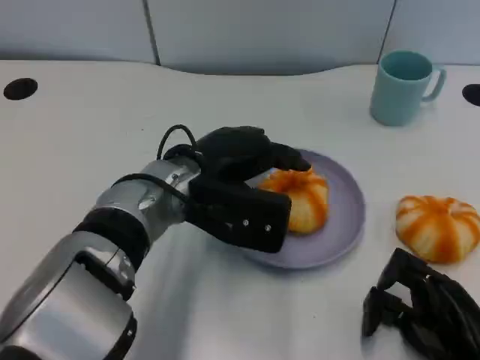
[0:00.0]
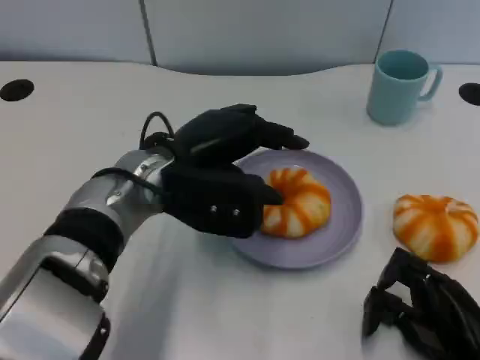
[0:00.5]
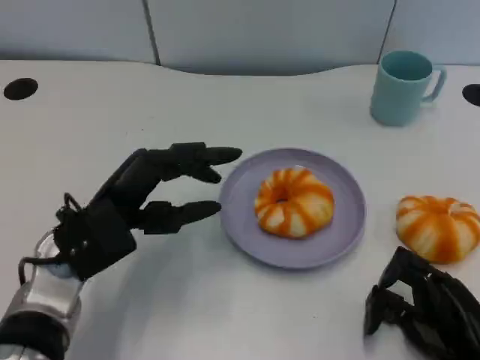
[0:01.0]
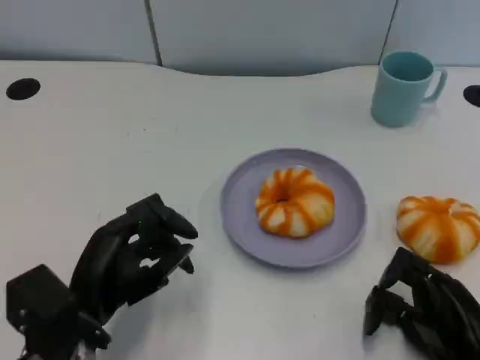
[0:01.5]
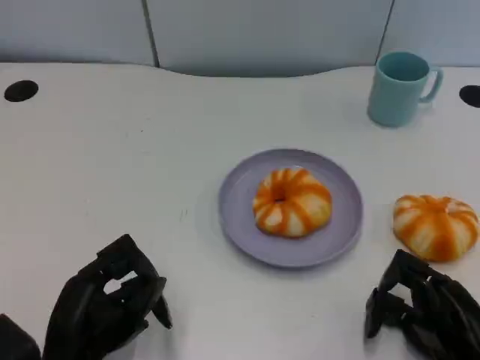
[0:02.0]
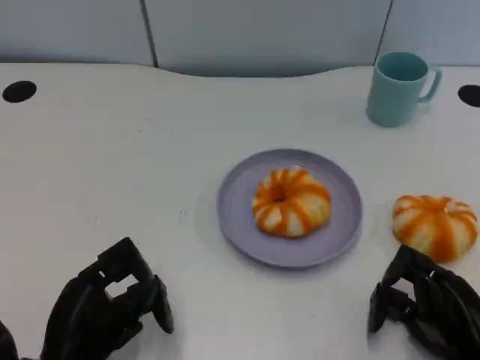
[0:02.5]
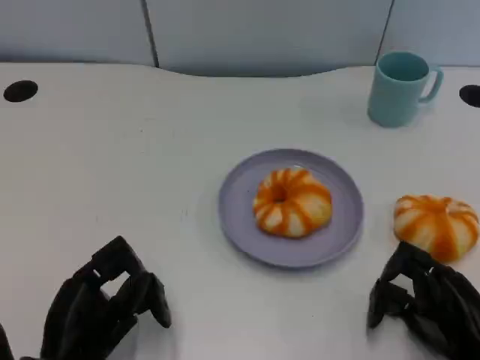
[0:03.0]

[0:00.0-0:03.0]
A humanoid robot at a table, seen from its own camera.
Task of the whole recording: Grasp the bread from the table and place it into the plate.
0:00.0 to 0:01.5: The left hand moves backward, to the left and downward, about 20 cm.

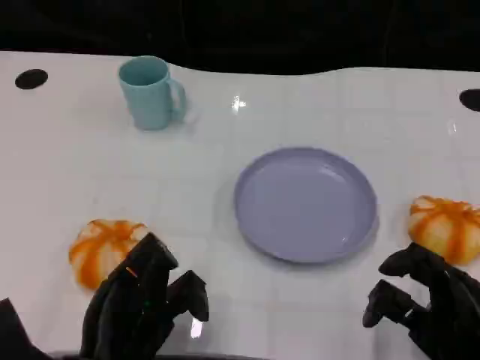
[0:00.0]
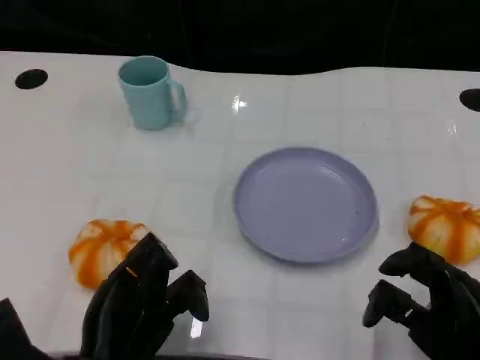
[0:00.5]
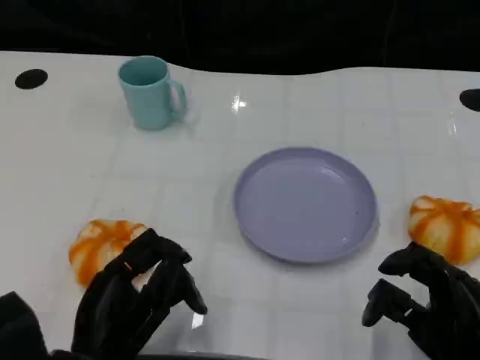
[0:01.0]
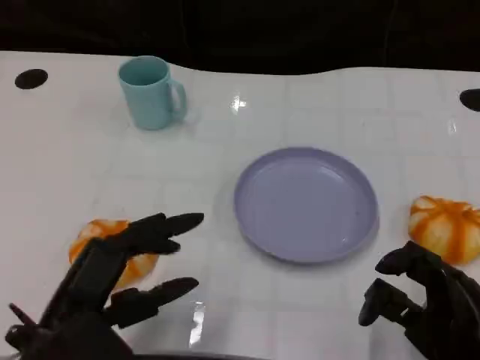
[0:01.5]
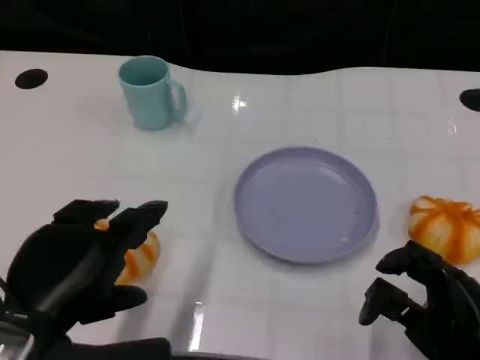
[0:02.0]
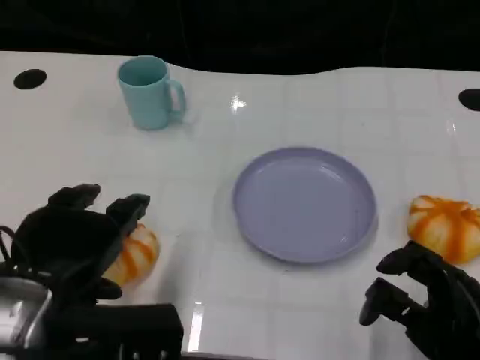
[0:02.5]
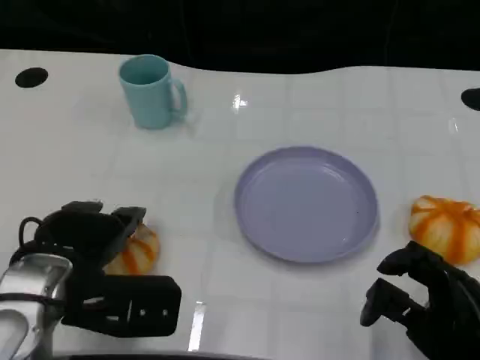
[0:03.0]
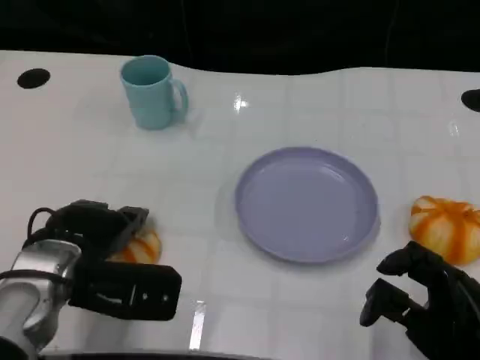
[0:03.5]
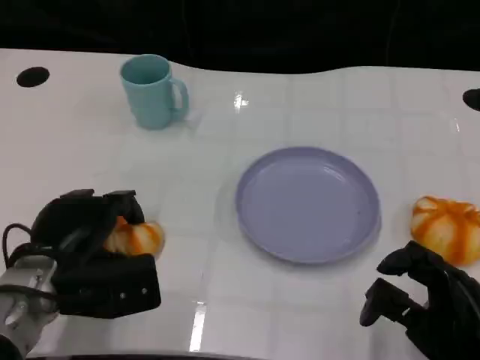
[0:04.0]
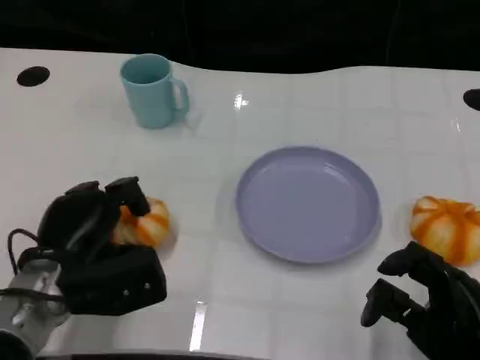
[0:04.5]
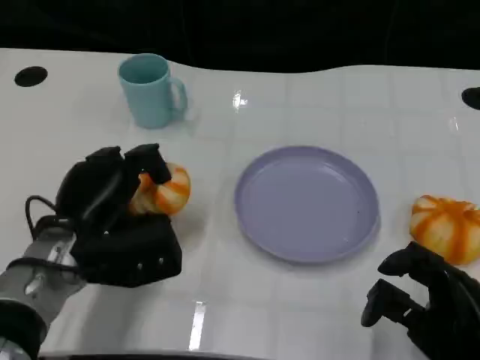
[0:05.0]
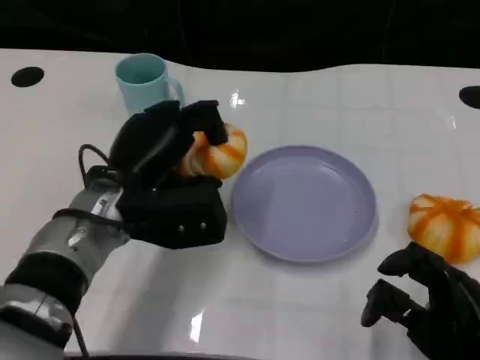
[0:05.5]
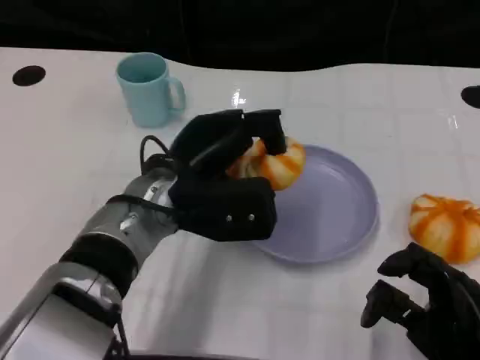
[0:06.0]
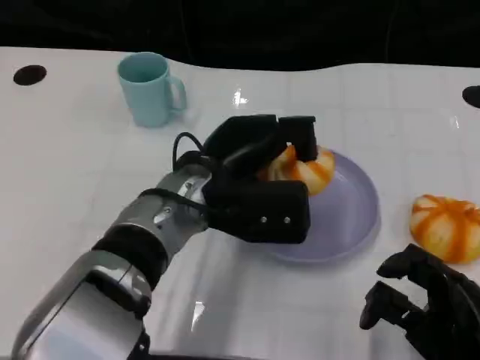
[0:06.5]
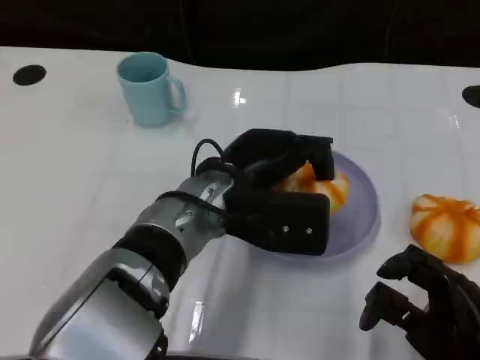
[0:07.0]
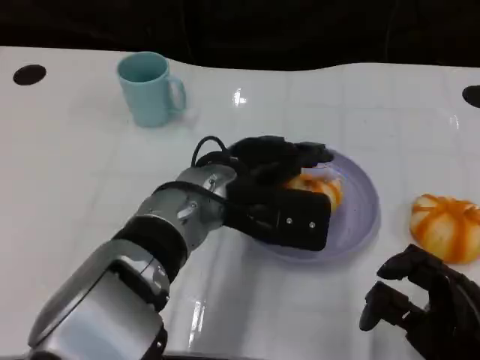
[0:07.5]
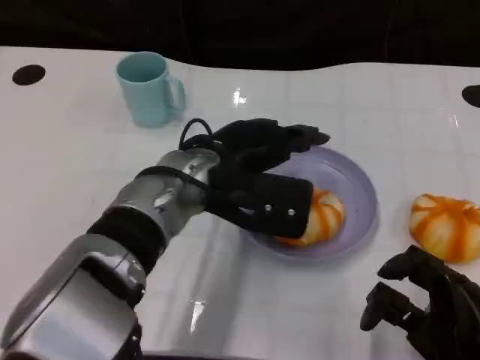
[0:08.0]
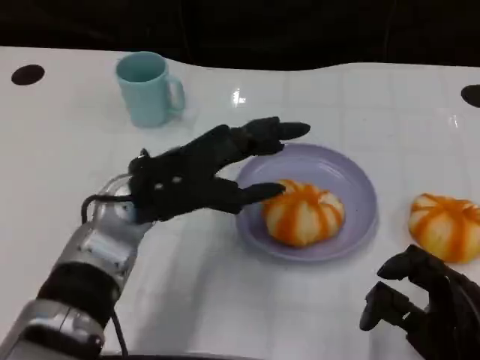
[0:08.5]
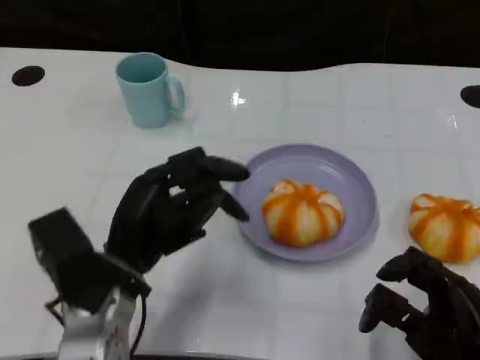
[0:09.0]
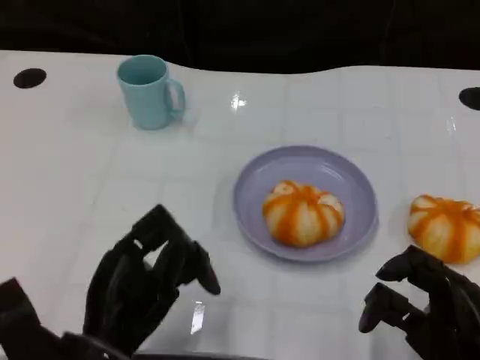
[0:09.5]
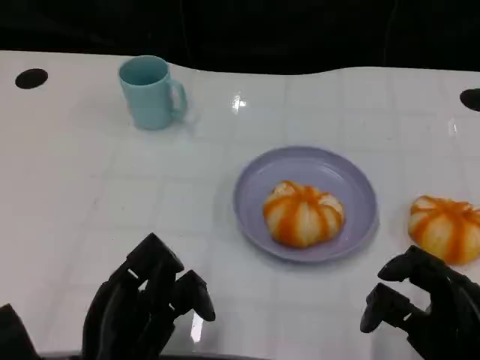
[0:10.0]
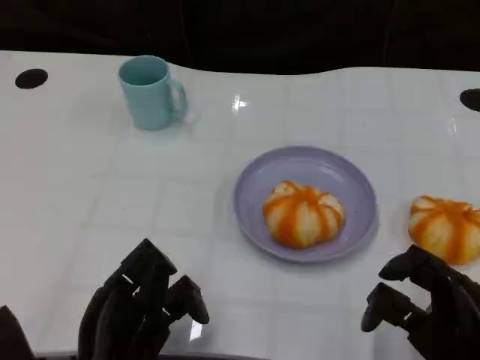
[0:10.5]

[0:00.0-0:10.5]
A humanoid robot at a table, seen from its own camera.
Task of the whole recording: Grasp the bread from the table and place it into the plate.
0:00.0 to 0:02.0: The left hand is displaced upward by about 10 cm.
0:02.0 to 0:04.0: The left hand is displaced forward and downward by some 15 cm.
0:04.0 to 0:06.5: The left hand goes roughly 15 cm to the right and upward.
0:06.5 to 0:08.5: The left hand goes approximately 5 cm to the left.
0:08.5 to 0:10.5: The left hand shifts approximately 15 cm backward and downward.

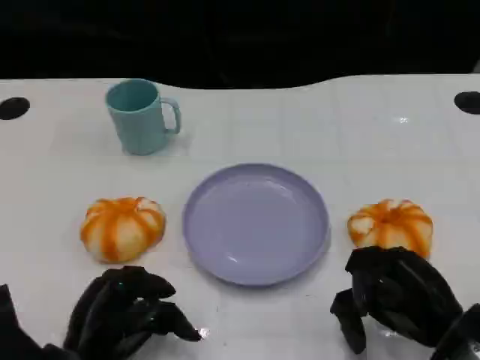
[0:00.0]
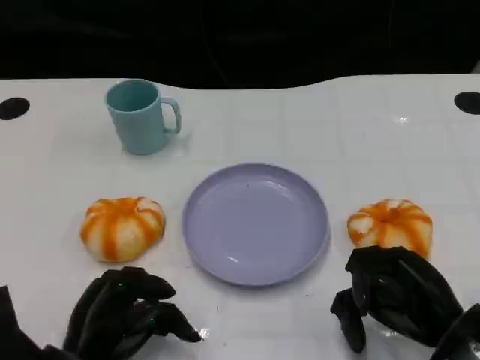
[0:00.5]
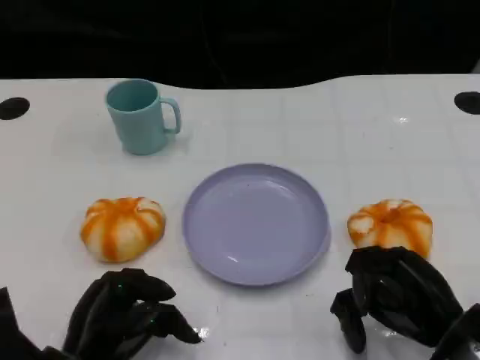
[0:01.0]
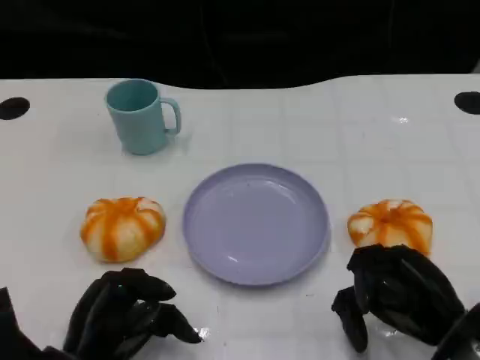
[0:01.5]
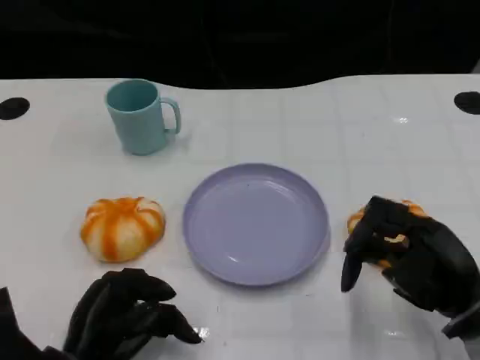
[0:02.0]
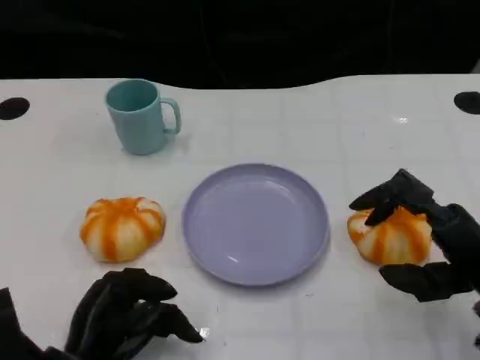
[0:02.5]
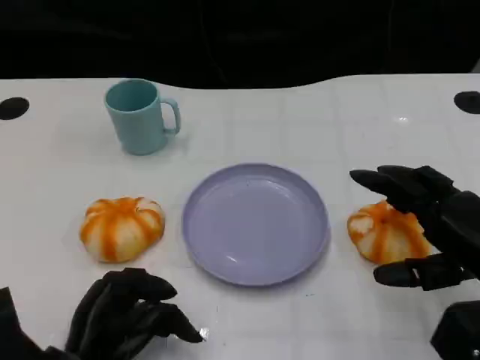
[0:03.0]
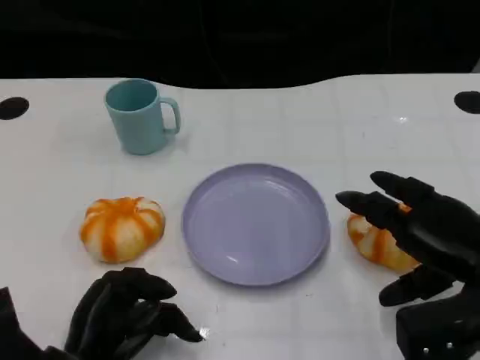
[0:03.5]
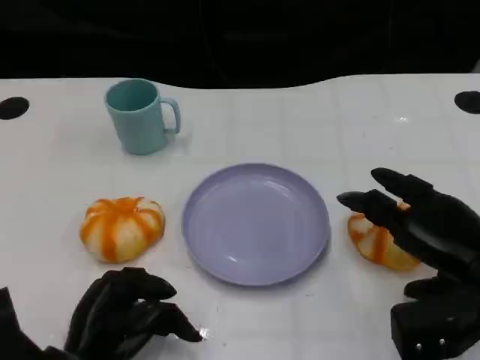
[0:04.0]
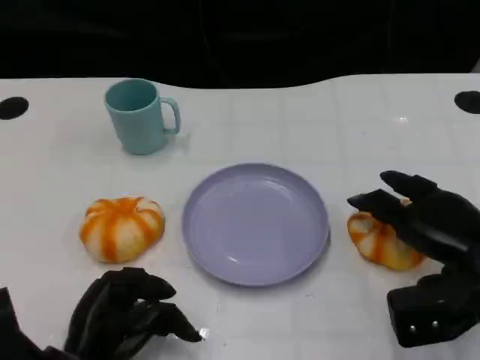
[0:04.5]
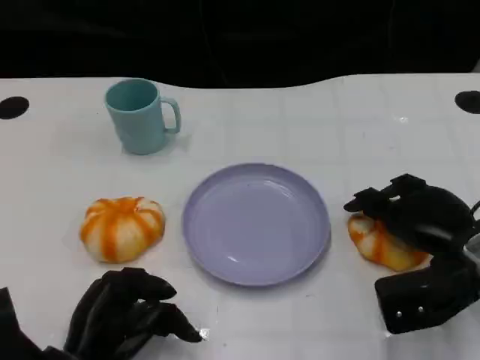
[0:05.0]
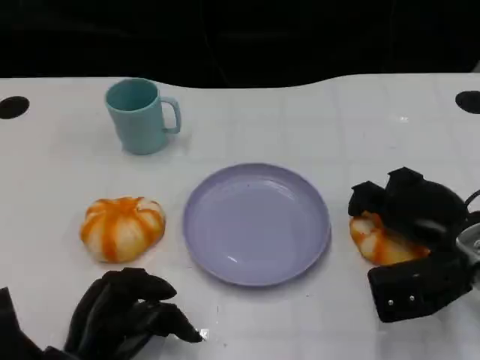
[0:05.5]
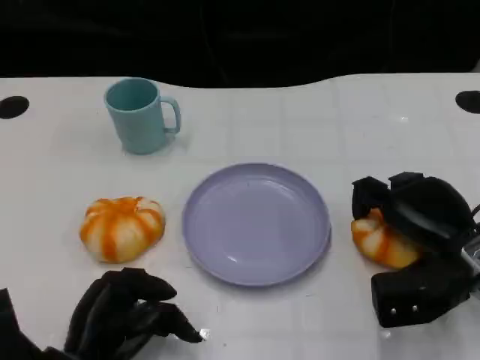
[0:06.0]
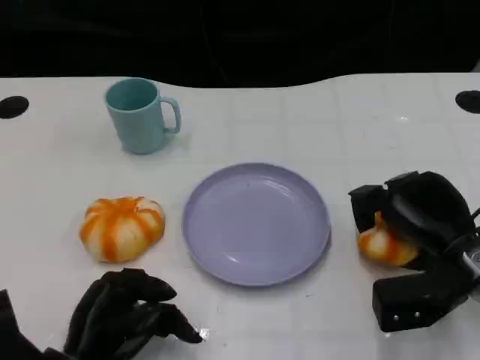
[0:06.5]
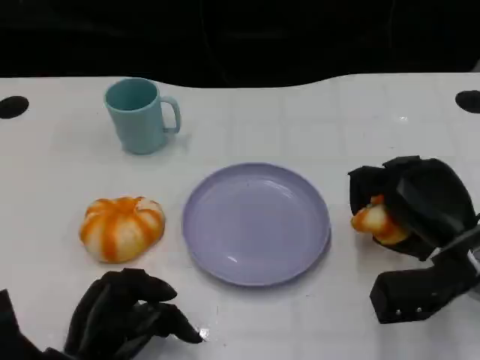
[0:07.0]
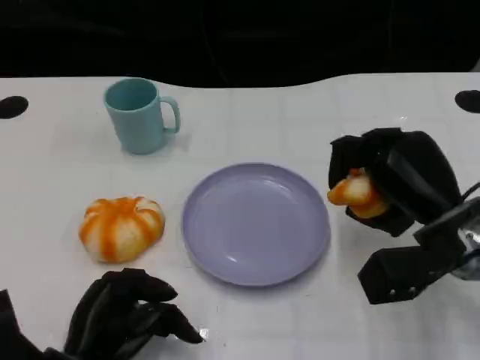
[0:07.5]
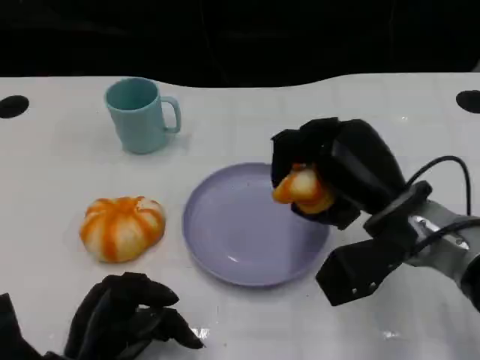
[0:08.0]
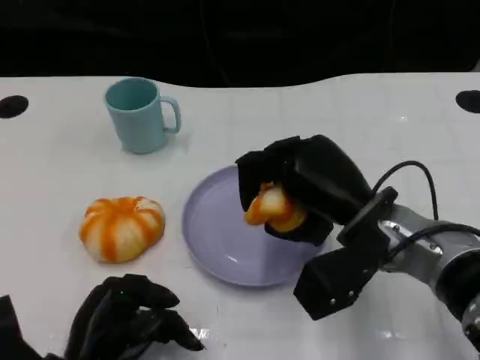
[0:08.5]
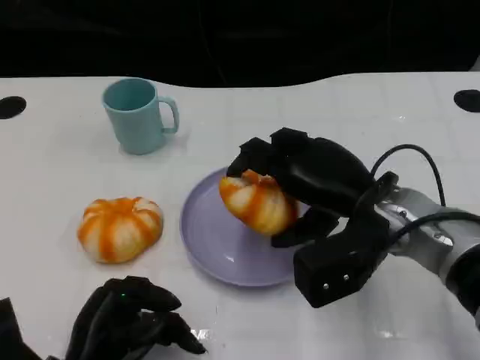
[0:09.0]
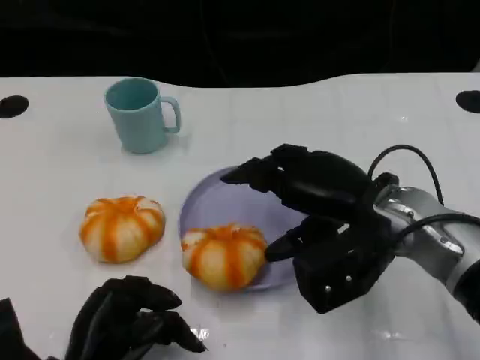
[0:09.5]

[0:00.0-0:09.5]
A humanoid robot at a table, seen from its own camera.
Task of the whole recording: Grasp the bread from the table and place it into the plate.
0:04.0 to 0:05.5: There are only small adjustments of the hands.
0:07.5 to 0:09.5: The right hand heads to the left, covering about 5 cm.

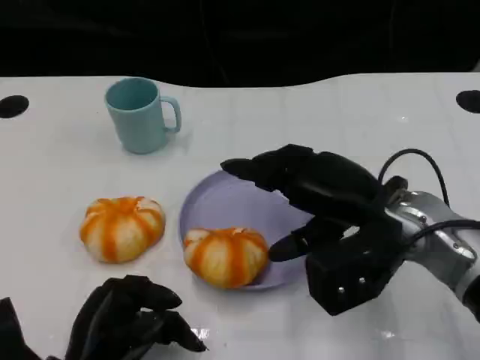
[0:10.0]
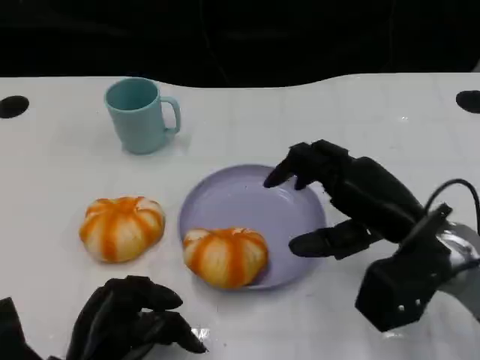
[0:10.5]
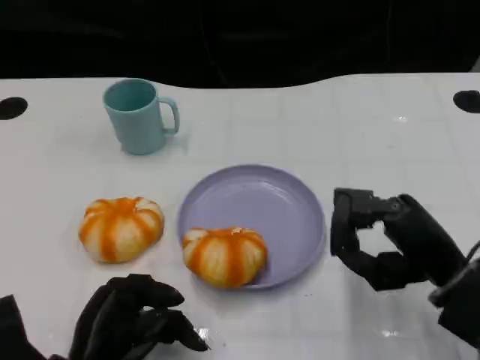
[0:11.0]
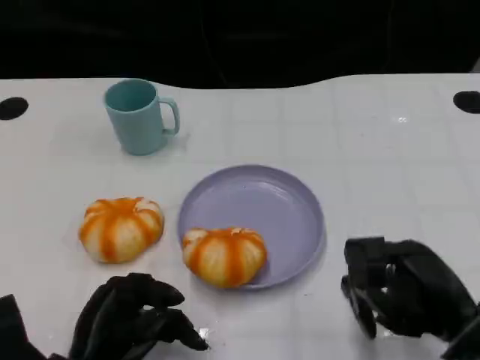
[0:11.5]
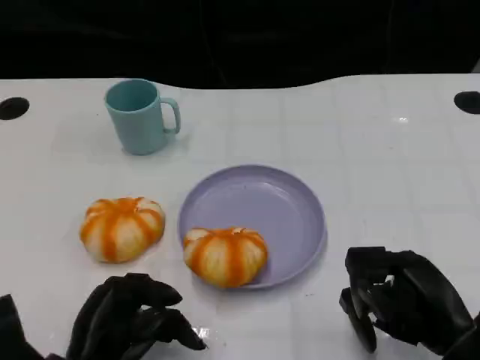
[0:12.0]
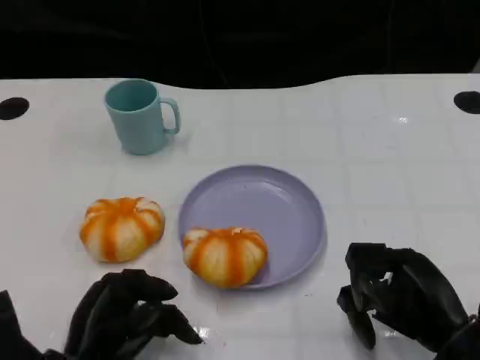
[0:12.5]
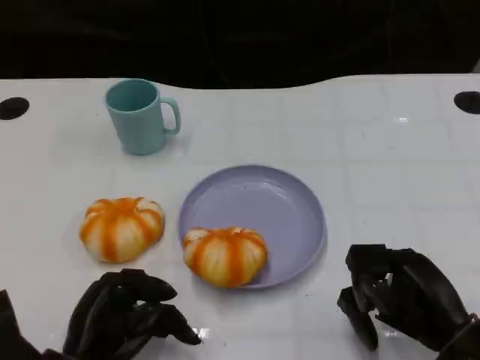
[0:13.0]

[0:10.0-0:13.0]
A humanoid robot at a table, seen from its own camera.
Task of the whole recording: Grasp the bread from the table and place it into the plate.
0:10.0 to 0:11.5: The right hand goes approximately 15 cm backward, to the right and downward.
0:11.5 to 0:13.0: The hands make only small movements.
